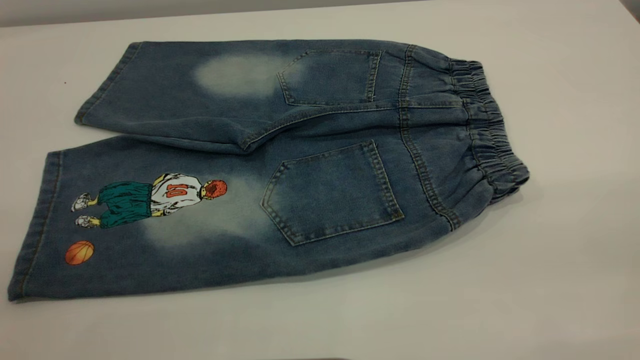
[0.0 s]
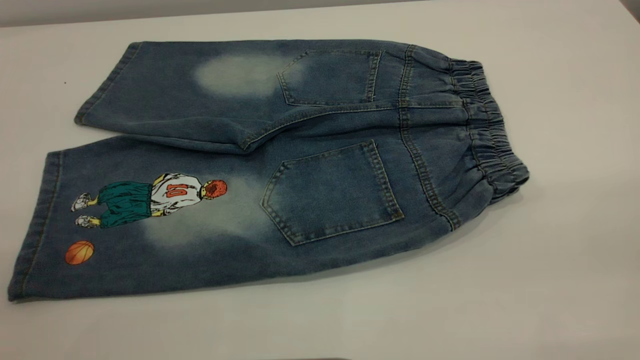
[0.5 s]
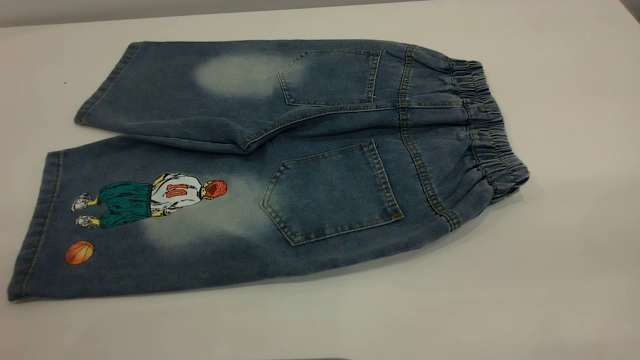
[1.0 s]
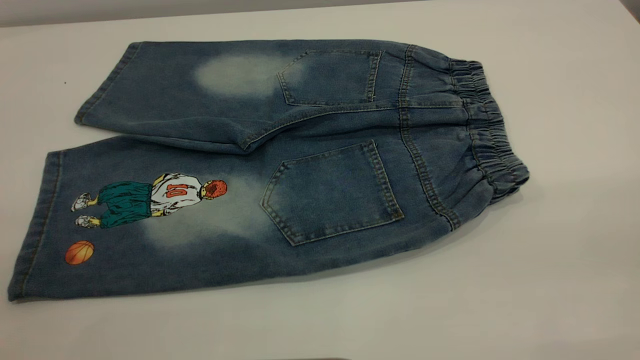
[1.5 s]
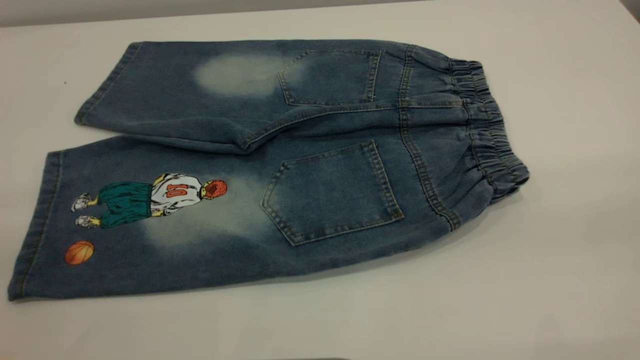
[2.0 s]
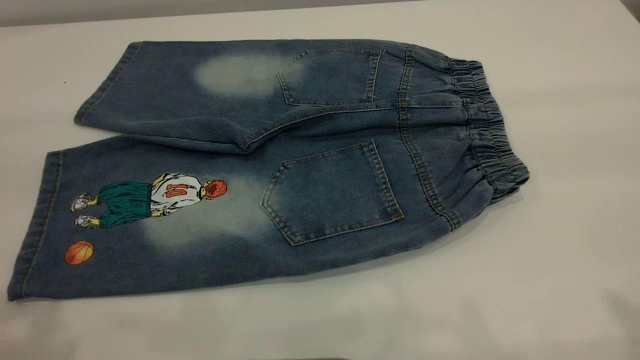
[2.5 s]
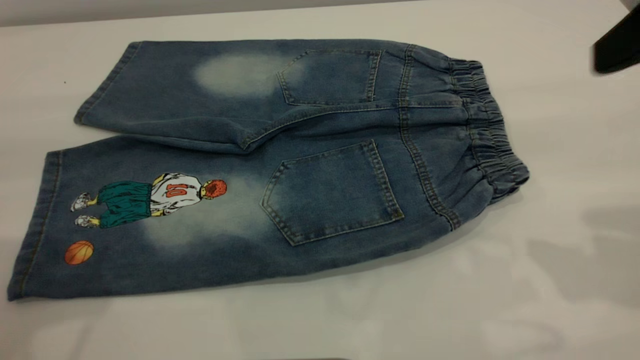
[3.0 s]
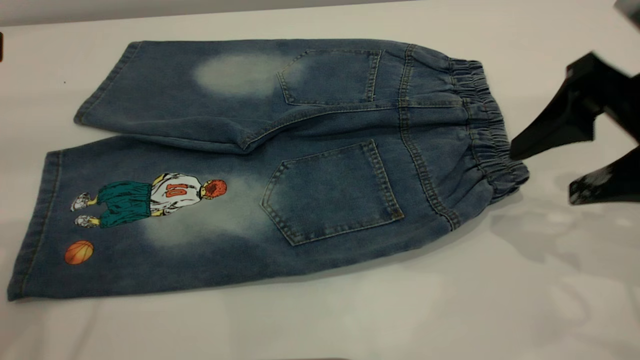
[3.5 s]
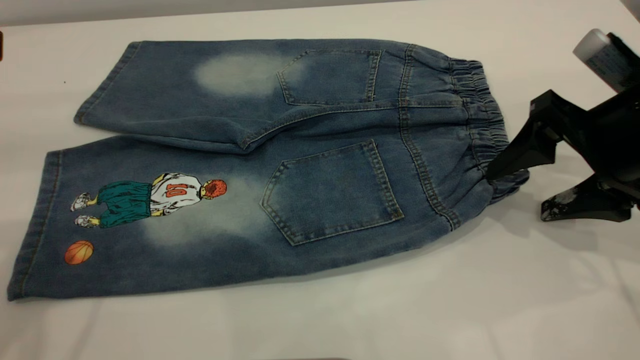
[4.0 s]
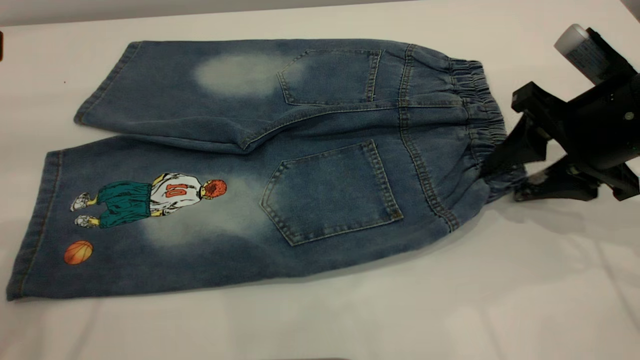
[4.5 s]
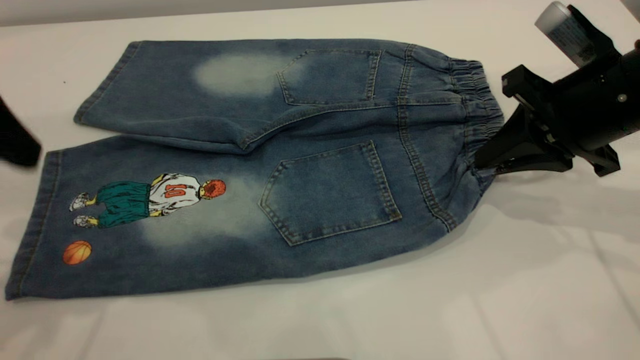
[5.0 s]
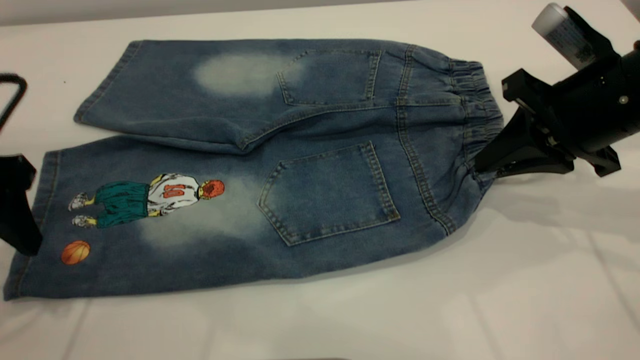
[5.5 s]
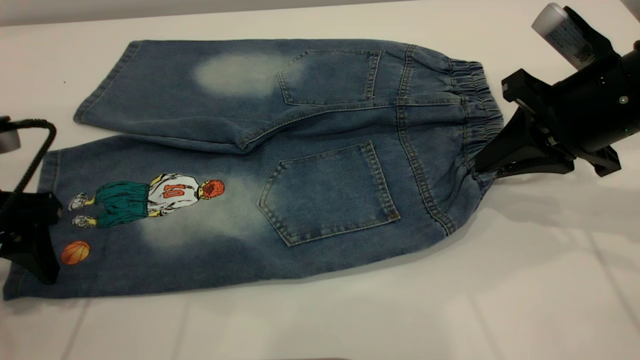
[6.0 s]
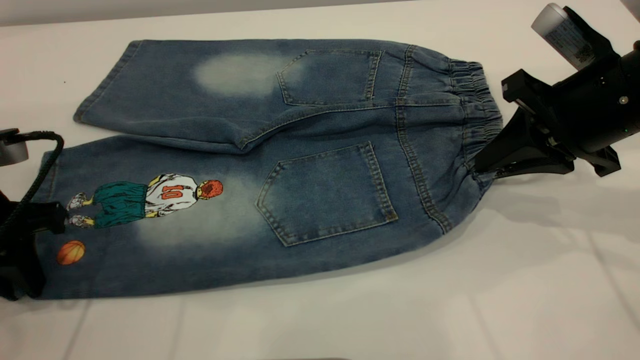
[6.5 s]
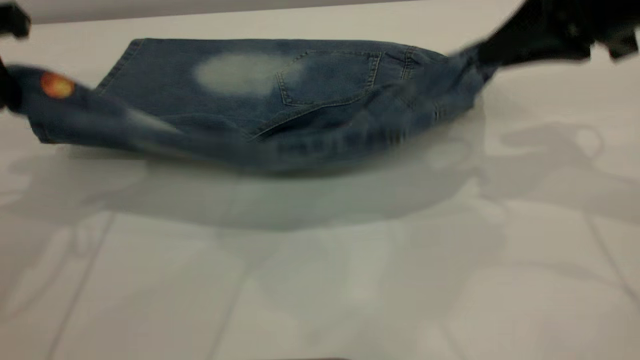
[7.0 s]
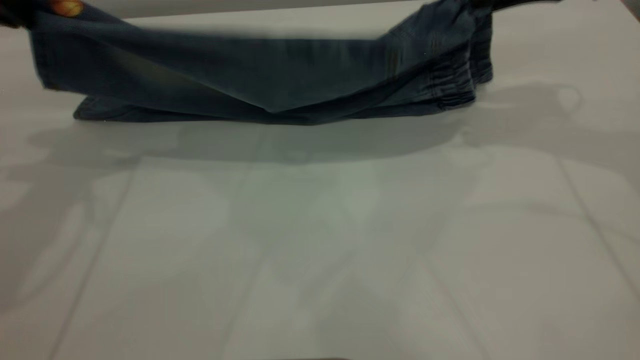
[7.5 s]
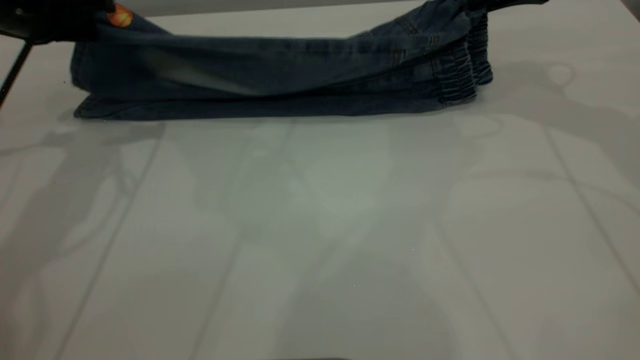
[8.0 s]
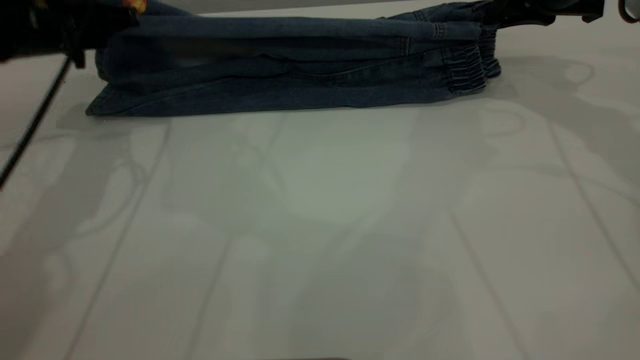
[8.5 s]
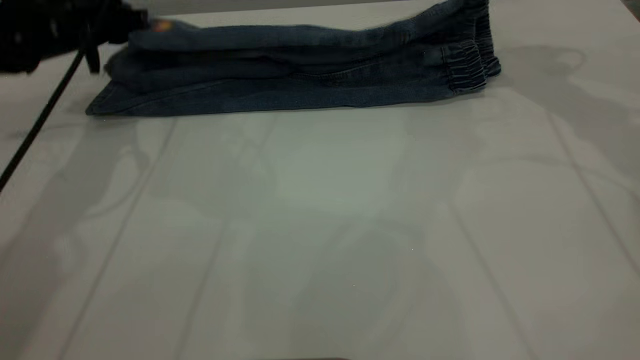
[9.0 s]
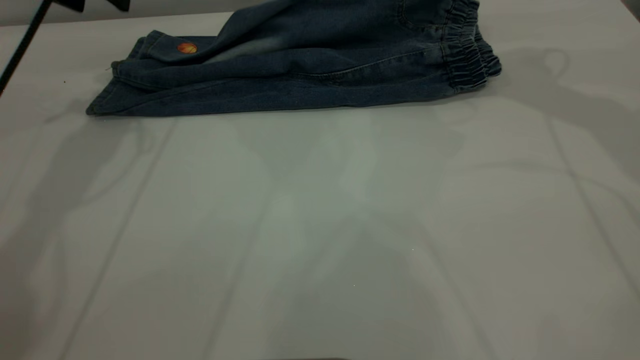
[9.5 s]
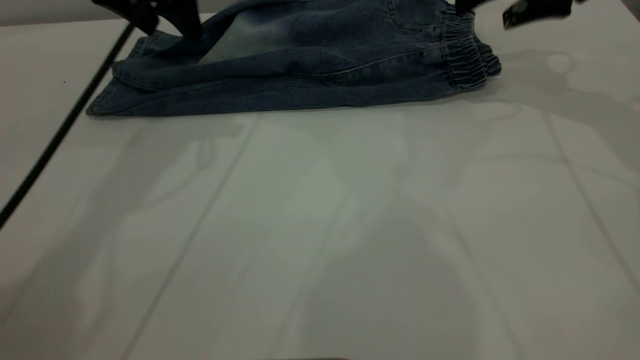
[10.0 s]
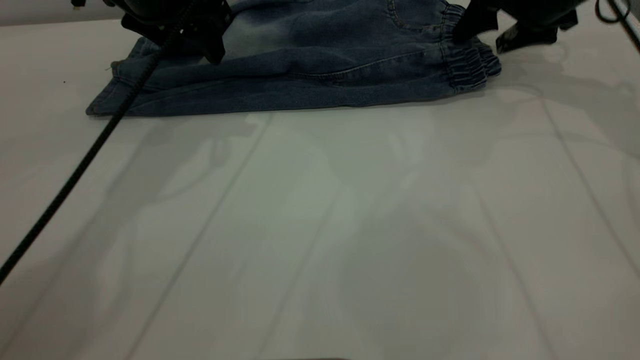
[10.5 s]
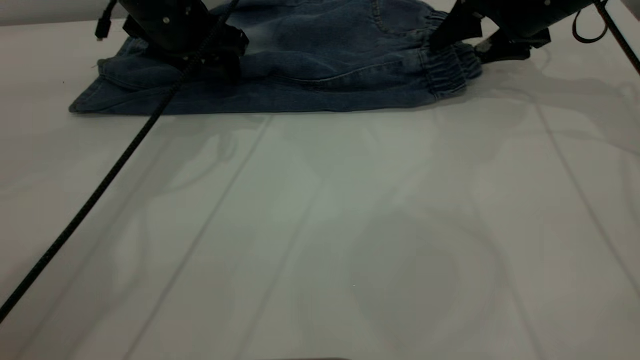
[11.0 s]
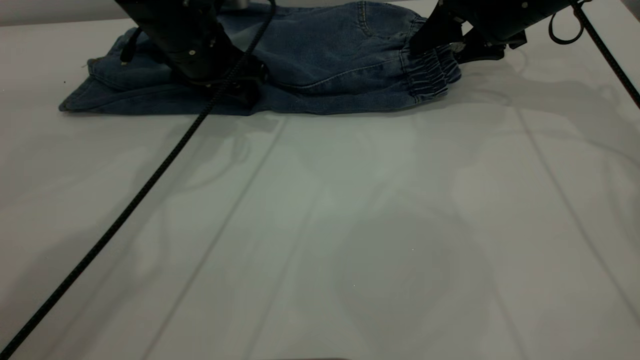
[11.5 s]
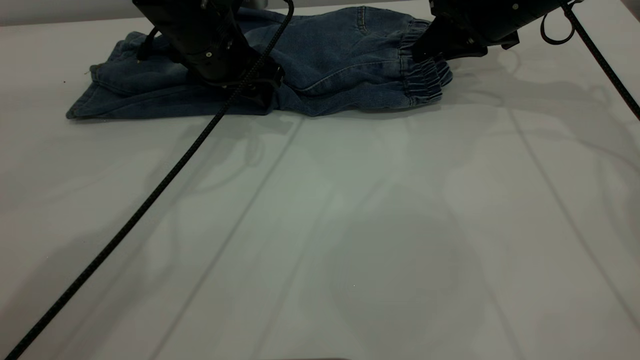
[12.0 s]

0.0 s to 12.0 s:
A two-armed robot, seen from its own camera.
Step, 0.0 to 9.5 s: Fold the bottom of the pants upward.
2.0 to 4.0 s: The right gripper heads forward and downward, covering some 35 cm.
4.0 to 6.0 s: The right gripper closes its fingers; the left gripper shifts approximately 15 cm downward.
6.0 to 8.0 s: The two grippers go approximately 15 cm forward and upward. The left gripper closes up.
8.0 to 10.0 s: The left gripper is displaced to the right by some 10 cm, and opens up. The right gripper opens up.
10.0 to 12.0 s: The right gripper shifts by approximately 5 cm, and closes. Meanwhile the left gripper moves downward and to the right, some 10 cm.

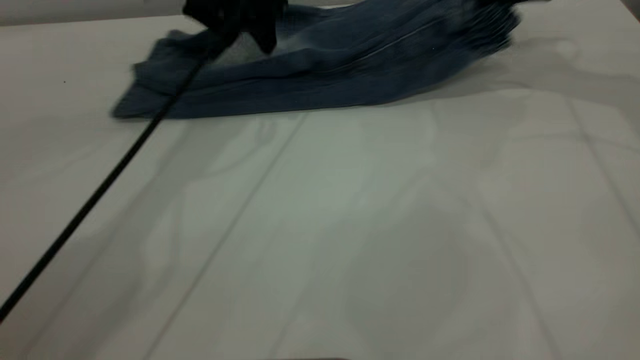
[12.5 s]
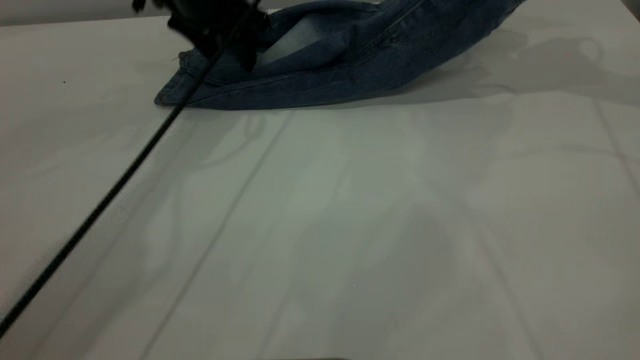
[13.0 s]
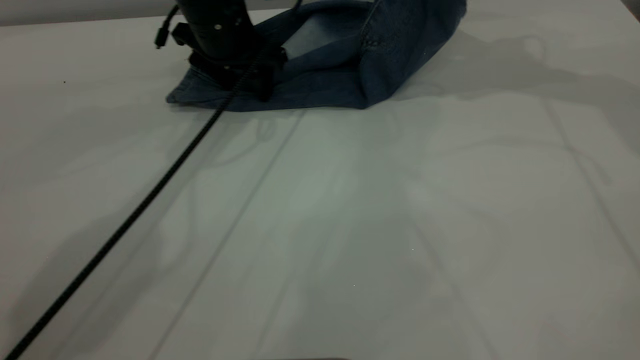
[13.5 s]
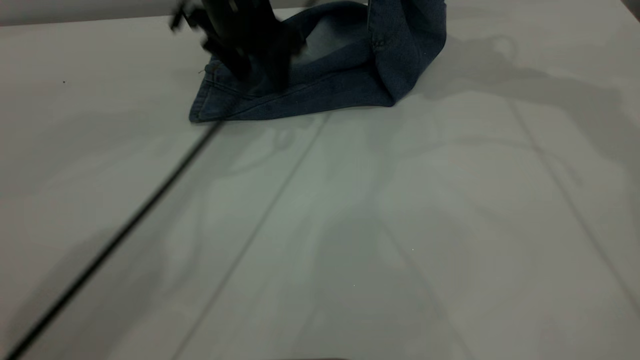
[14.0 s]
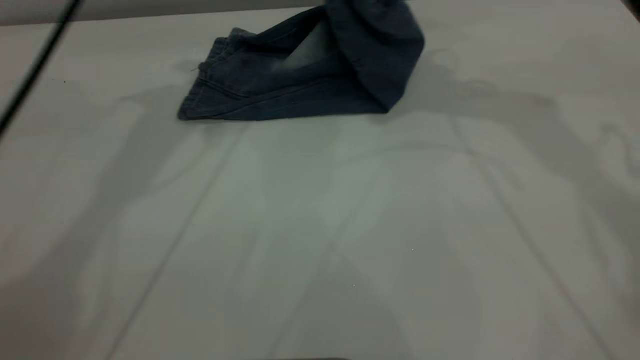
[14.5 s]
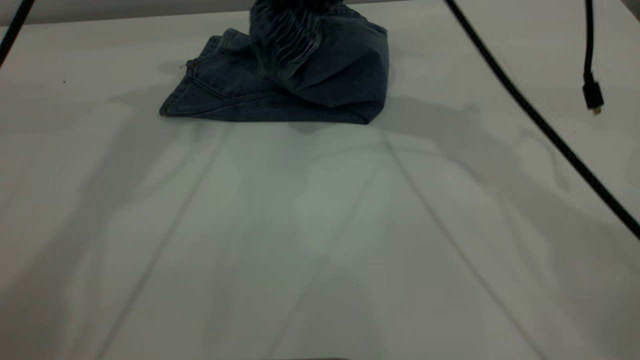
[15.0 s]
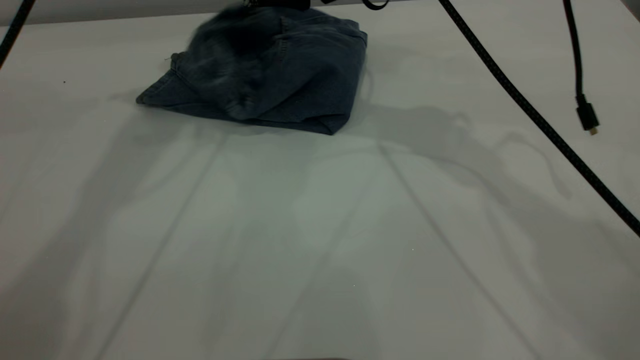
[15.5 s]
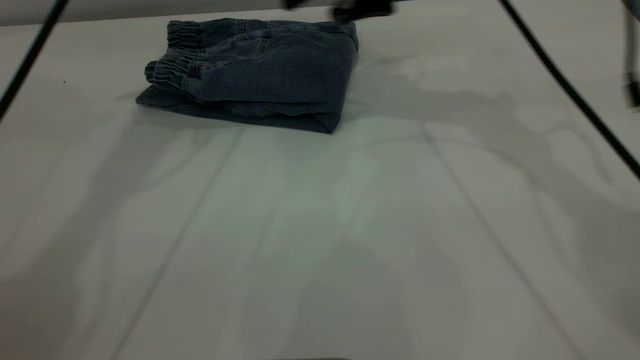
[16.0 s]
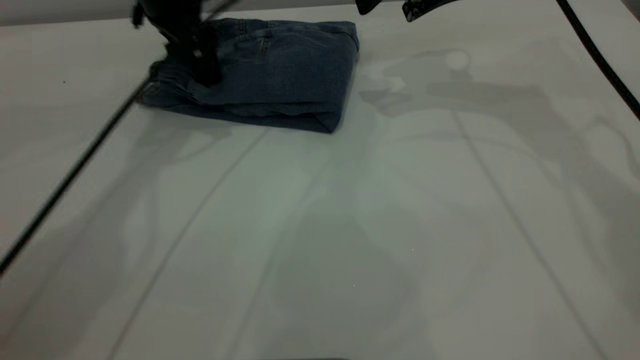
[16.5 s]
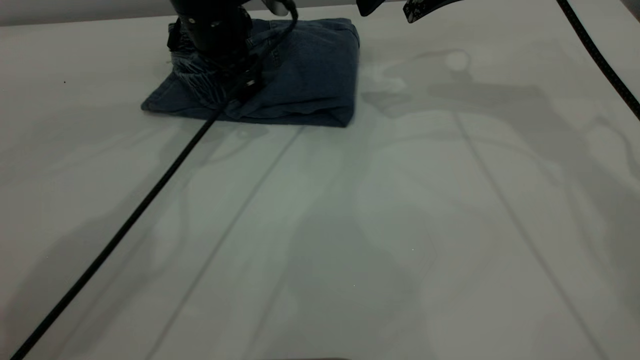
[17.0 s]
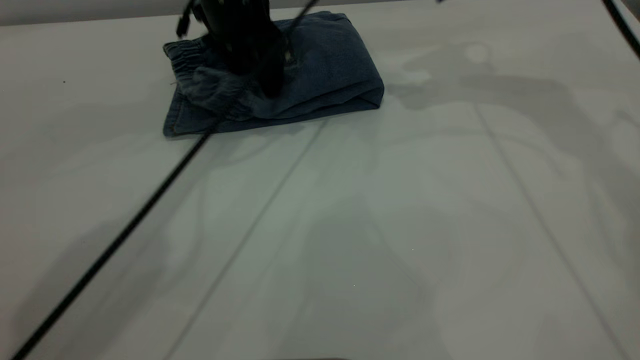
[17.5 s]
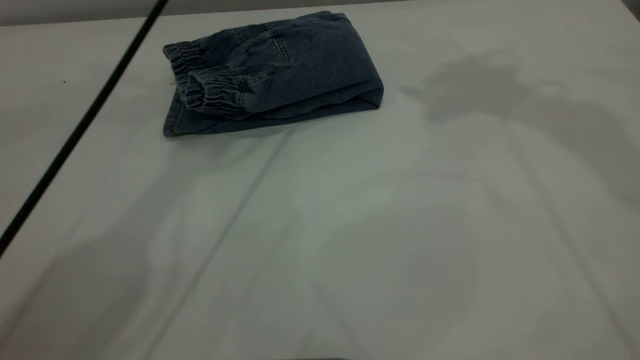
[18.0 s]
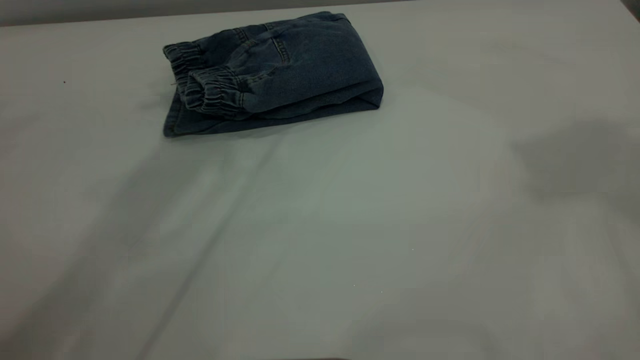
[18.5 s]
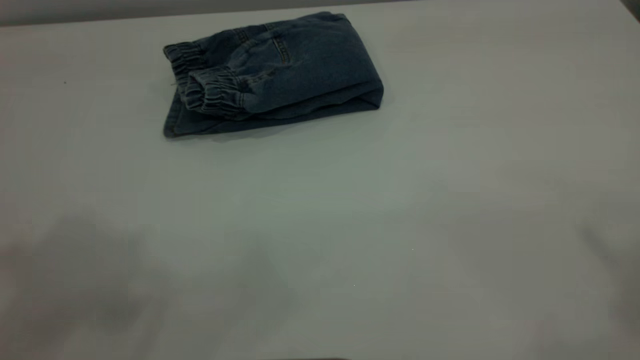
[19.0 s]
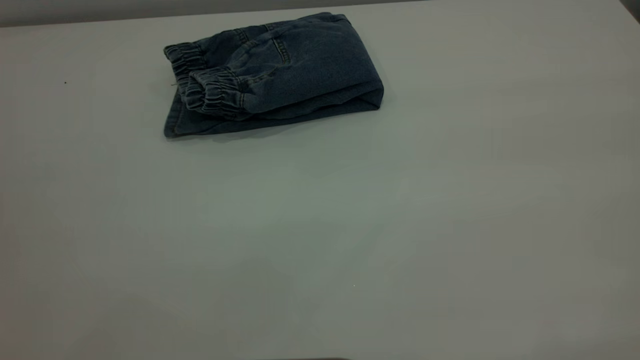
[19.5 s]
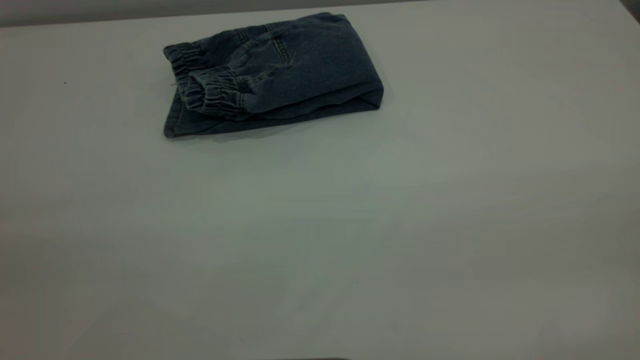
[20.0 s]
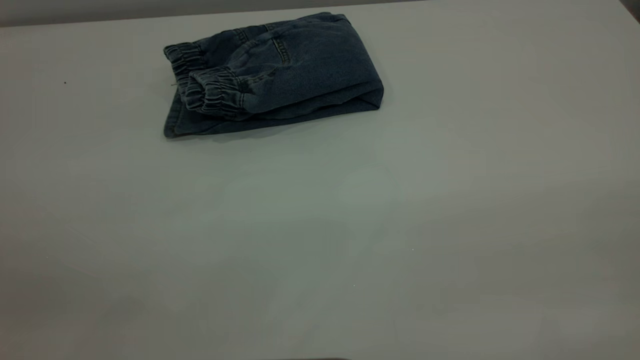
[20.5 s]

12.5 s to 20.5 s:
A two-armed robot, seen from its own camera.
Step, 12.5 to 15.5 s: Fold your pants from right to left.
12.5 to 14.5 s: The right gripper moves to the left and upward, roughly 20 cm; the left gripper goes approximately 15 cm upward and to the left.
14.5 to 16.5 s: The right gripper is displaced downward by about 10 cm, moves approximately 10 cm to the left and comes back, and opens up. The left gripper is displaced downward by approximately 15 cm.
16.5 to 18.5 s: The left gripper is displaced upward by roughly 30 cm, while the right gripper is displaced upward and backward by about 40 cm.
